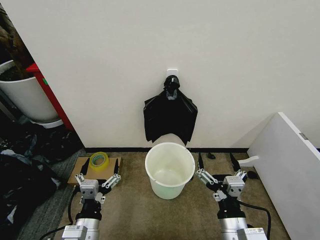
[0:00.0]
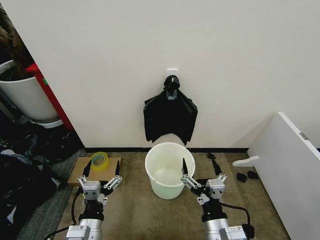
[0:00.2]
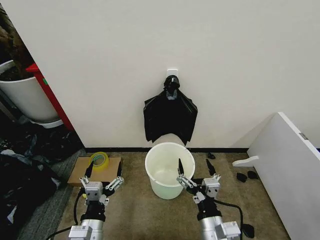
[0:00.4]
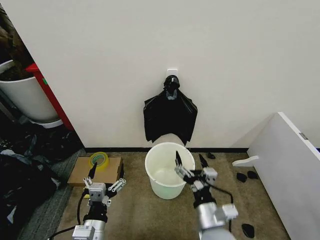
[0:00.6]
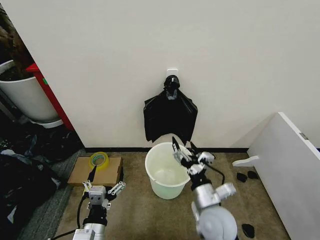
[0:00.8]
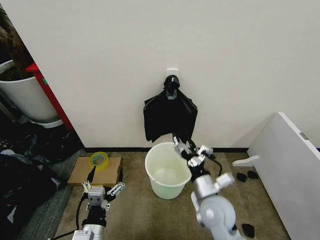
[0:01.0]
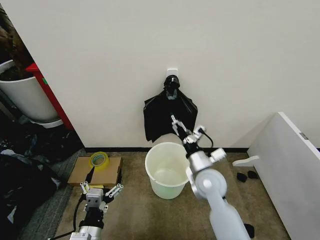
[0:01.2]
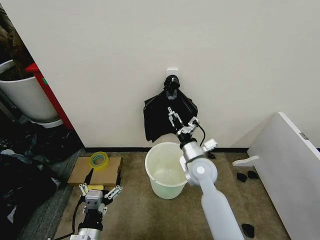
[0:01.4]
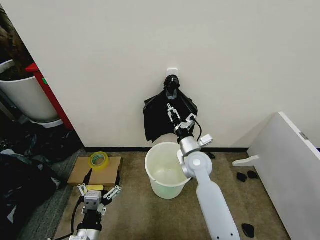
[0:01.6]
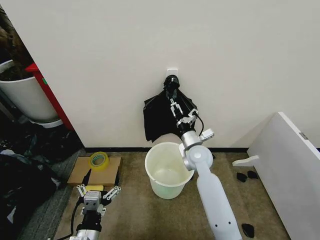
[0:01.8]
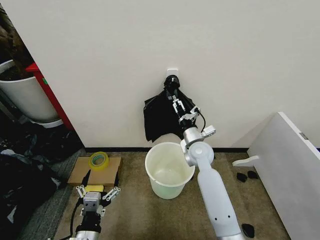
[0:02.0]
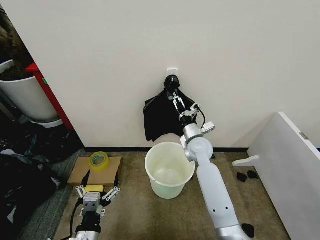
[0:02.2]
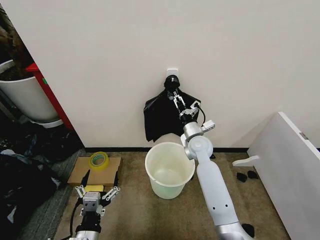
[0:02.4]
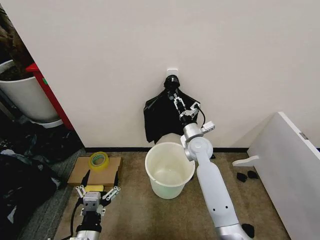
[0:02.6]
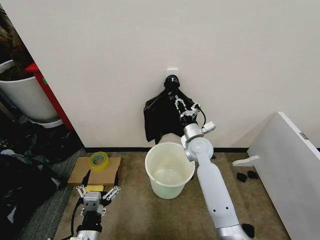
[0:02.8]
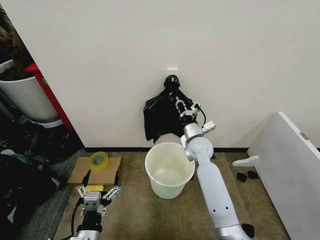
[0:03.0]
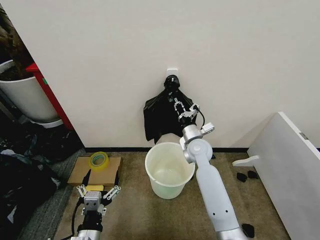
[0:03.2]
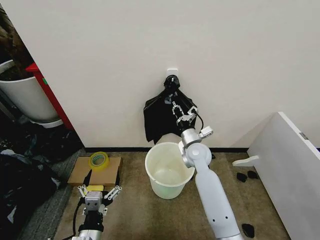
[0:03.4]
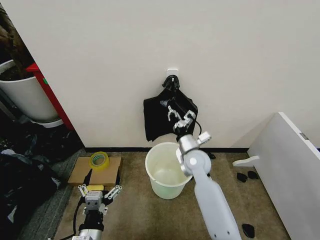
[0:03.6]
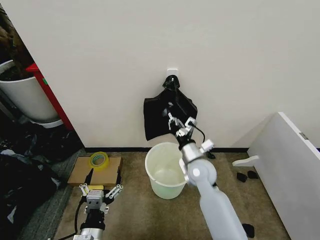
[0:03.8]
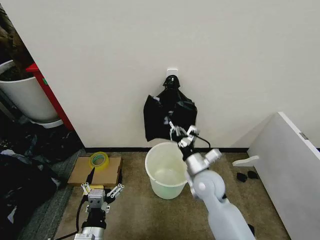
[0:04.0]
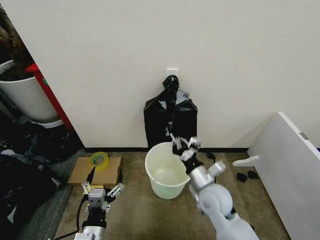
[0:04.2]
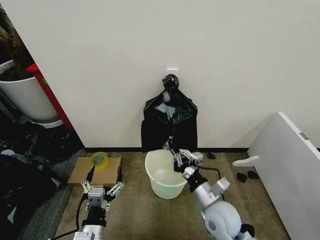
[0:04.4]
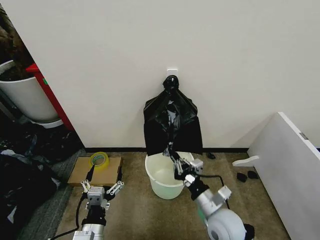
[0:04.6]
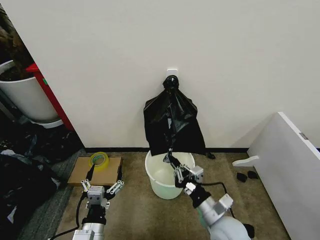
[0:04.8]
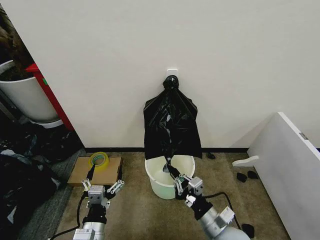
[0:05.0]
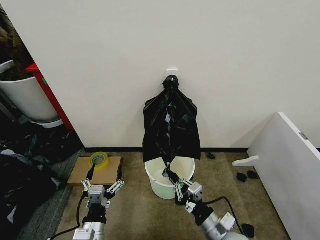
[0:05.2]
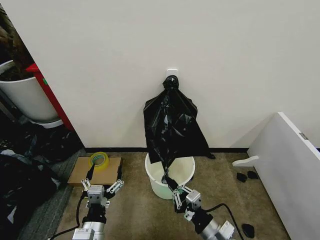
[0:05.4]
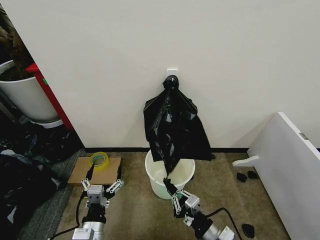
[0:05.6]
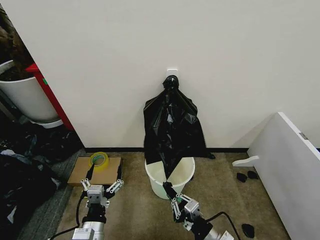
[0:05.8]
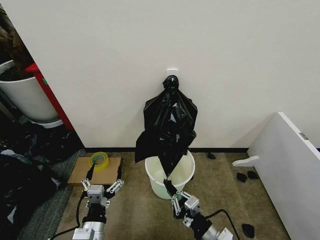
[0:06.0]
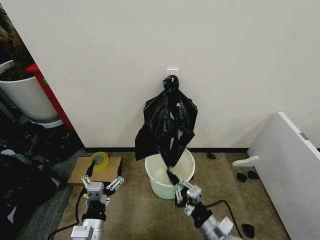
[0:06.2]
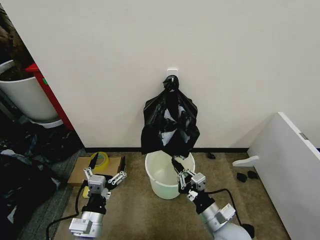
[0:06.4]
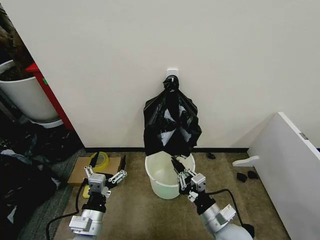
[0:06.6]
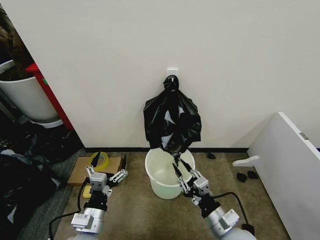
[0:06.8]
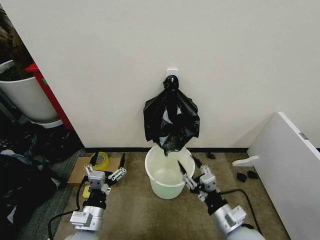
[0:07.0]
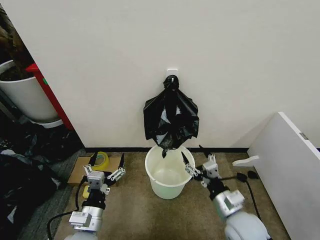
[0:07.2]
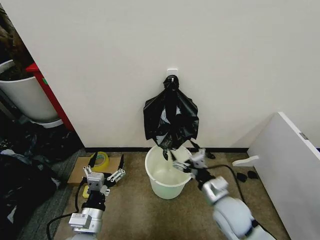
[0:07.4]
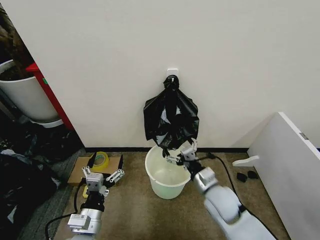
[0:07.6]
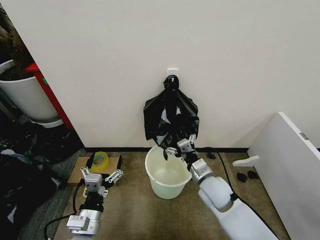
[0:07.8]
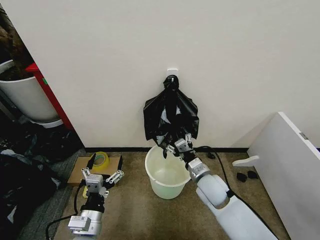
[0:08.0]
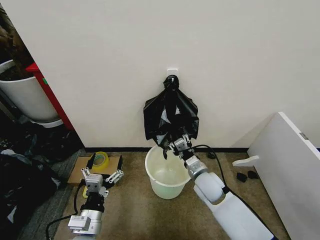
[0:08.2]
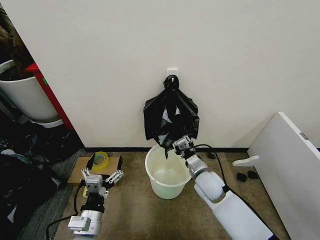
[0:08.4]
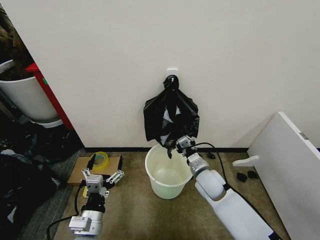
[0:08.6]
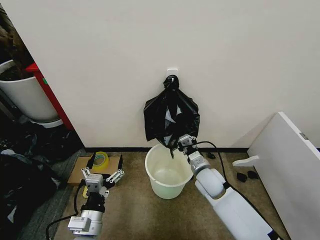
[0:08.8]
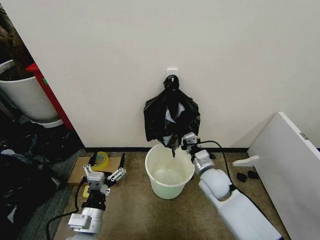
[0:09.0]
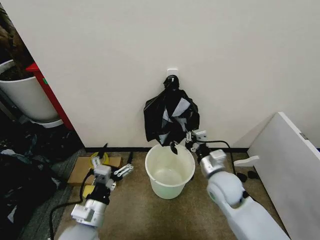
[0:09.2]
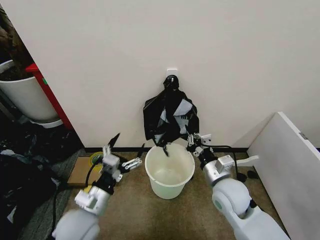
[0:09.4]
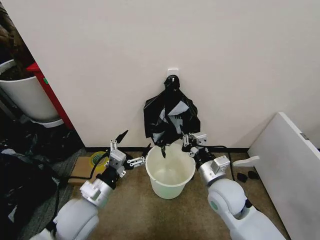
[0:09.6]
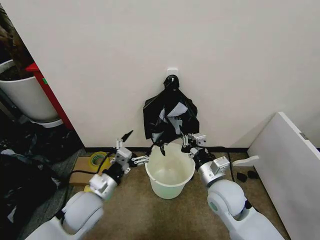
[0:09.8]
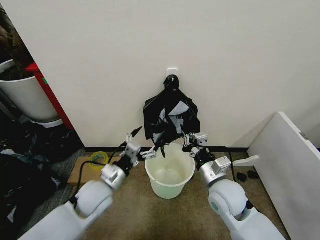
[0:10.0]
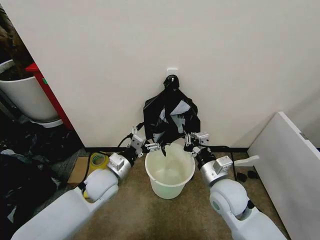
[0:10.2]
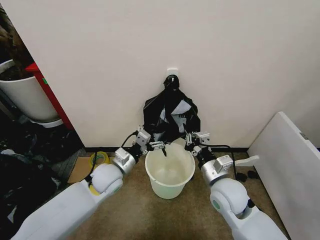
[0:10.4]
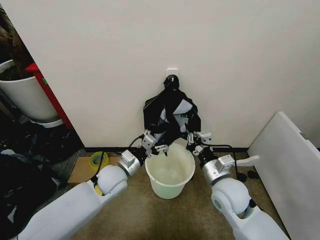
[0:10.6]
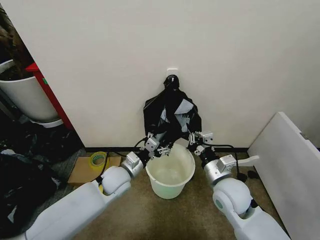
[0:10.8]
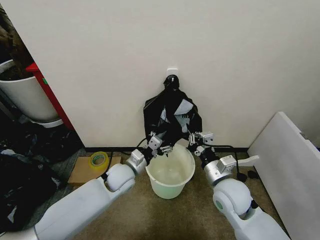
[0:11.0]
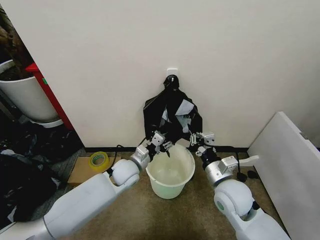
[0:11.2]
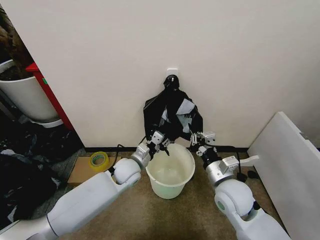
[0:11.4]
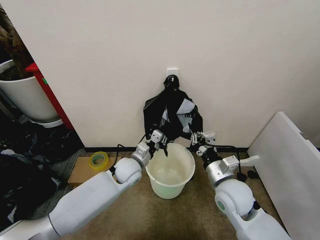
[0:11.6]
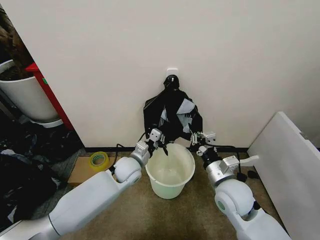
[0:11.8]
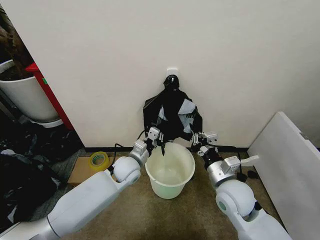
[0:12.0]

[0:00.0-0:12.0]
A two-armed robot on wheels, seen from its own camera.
Task of the whole recording: Place the garbage bag over the trash bin.
0:01.6 to 0:03.0: The right gripper shifts roughly 5 cm forward, and closes.
0:03.0 to 0:04.4: The right gripper moves backward, about 20 cm.
0:04.4 to 0:06.0: The right gripper heads backward and downward, covering some 10 cm.
0:06.0 to 0:07.6: The right gripper heads forward, covering about 15 cm, and opens its fingers.
0:07.6 to 0:09.0: The right gripper moves forward, some 5 cm, and closes up.
0:09.0 to 0:10.4: The right gripper moves backward and upward, approximately 10 cm; the left gripper goes about 20 cm forward.
0:10.4 to 0:12.0: The left gripper is displaced to the right and forward by approximately 10 cm, and closes up.

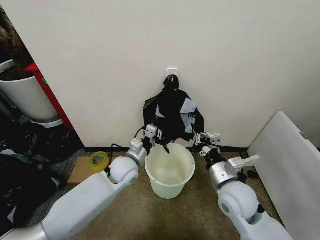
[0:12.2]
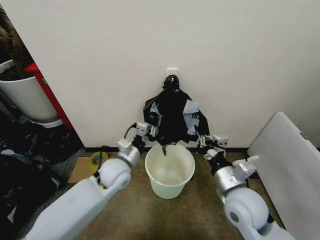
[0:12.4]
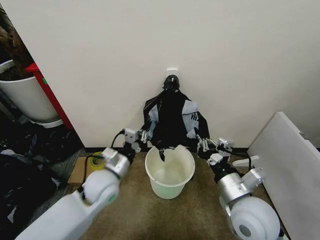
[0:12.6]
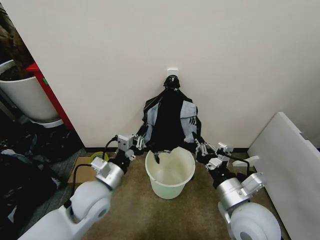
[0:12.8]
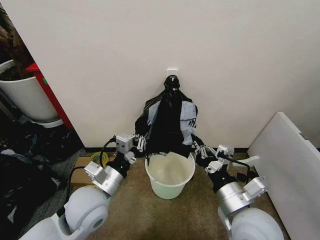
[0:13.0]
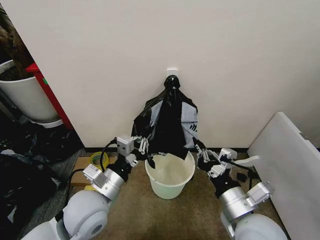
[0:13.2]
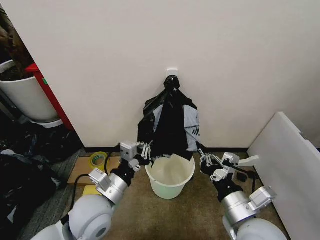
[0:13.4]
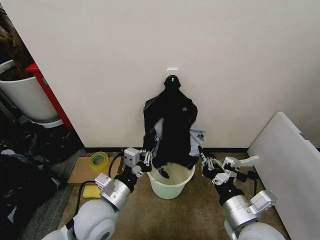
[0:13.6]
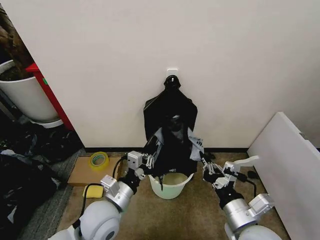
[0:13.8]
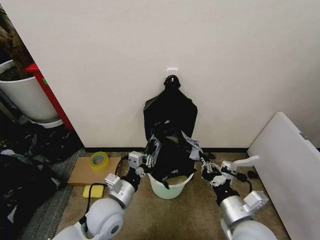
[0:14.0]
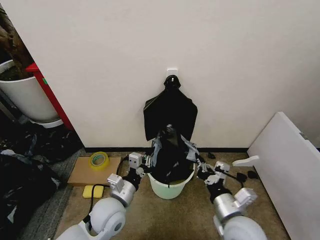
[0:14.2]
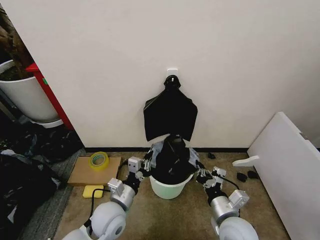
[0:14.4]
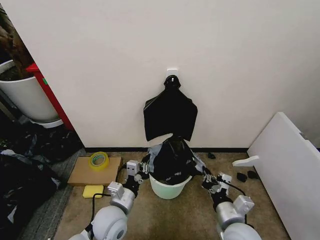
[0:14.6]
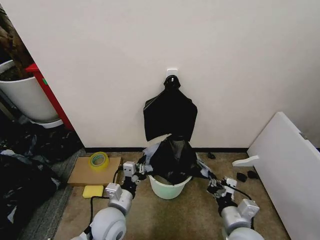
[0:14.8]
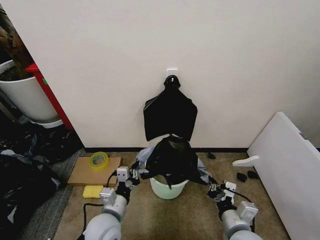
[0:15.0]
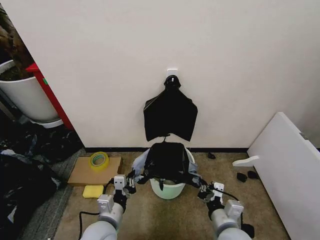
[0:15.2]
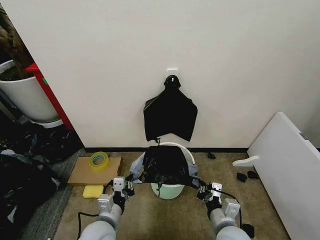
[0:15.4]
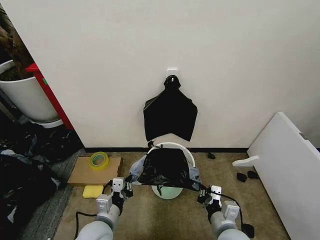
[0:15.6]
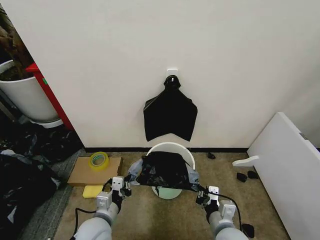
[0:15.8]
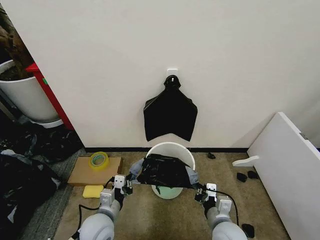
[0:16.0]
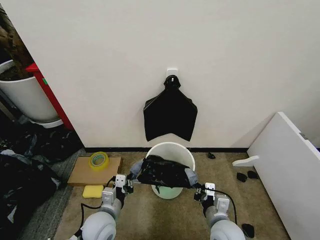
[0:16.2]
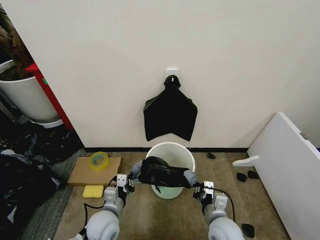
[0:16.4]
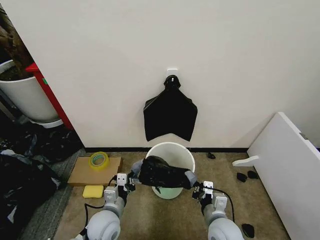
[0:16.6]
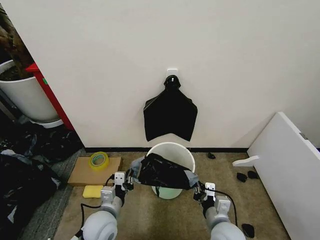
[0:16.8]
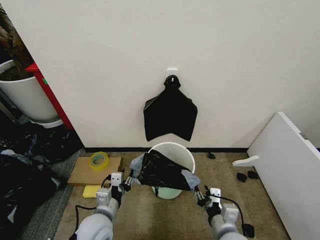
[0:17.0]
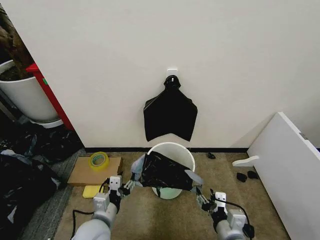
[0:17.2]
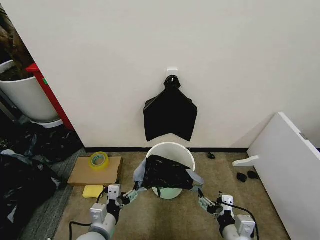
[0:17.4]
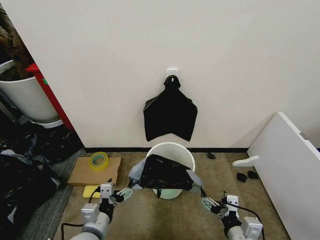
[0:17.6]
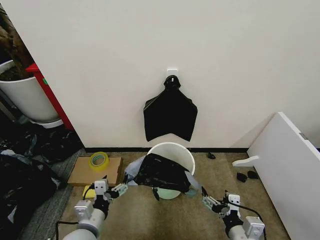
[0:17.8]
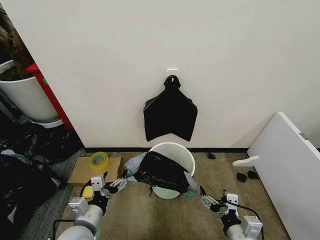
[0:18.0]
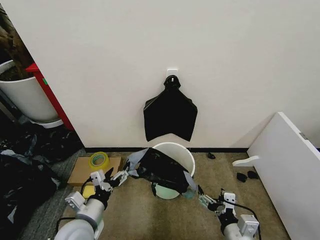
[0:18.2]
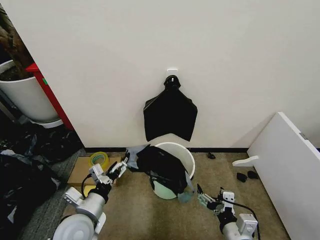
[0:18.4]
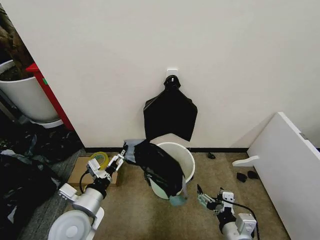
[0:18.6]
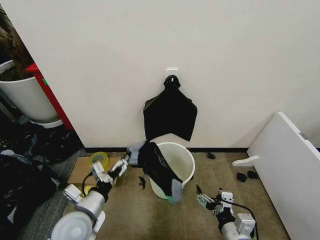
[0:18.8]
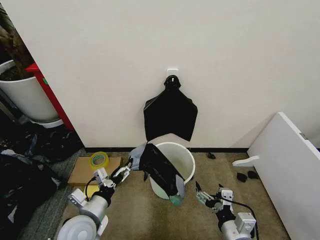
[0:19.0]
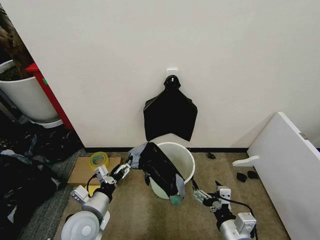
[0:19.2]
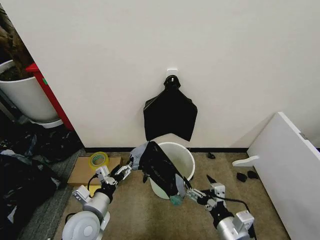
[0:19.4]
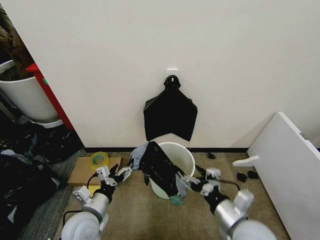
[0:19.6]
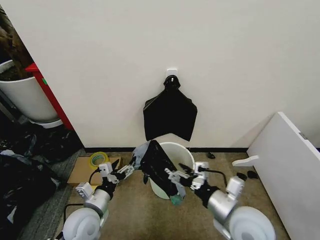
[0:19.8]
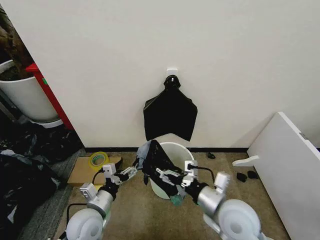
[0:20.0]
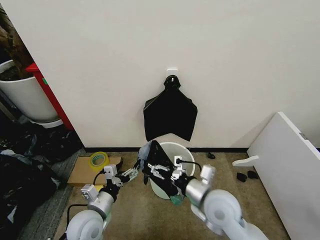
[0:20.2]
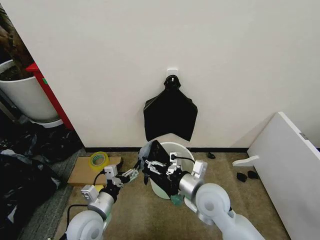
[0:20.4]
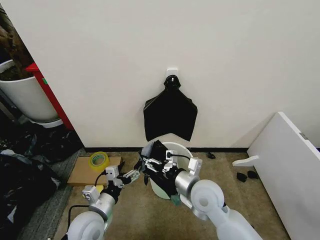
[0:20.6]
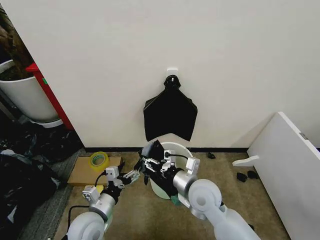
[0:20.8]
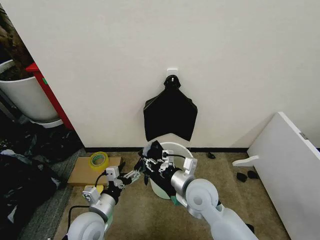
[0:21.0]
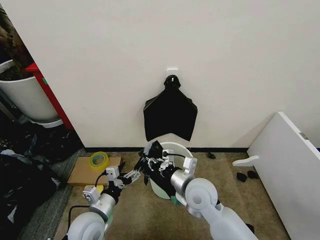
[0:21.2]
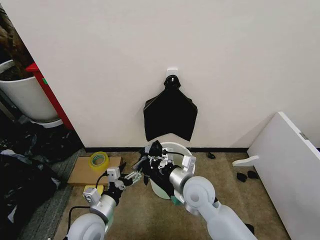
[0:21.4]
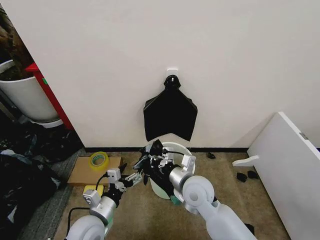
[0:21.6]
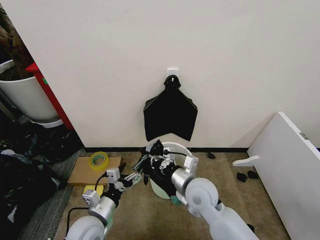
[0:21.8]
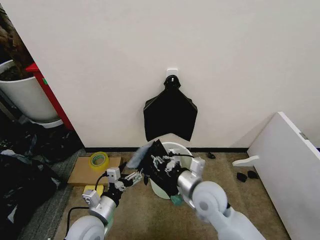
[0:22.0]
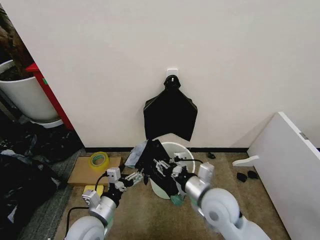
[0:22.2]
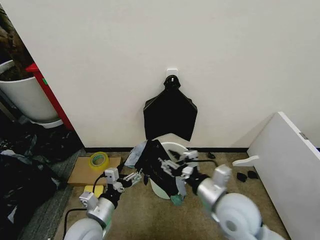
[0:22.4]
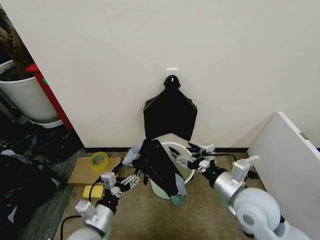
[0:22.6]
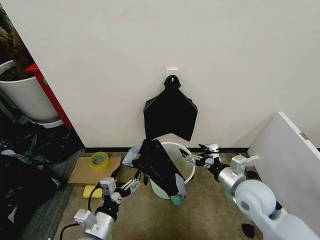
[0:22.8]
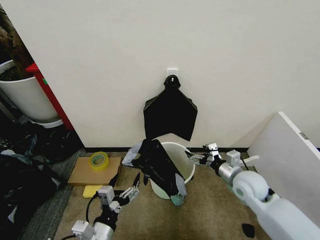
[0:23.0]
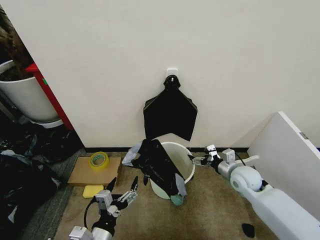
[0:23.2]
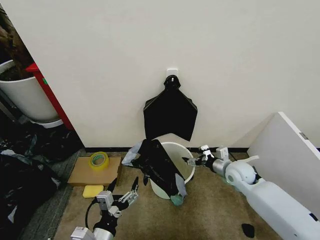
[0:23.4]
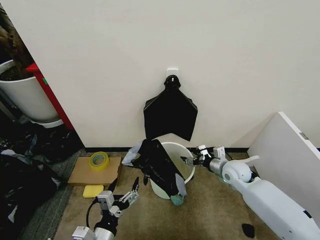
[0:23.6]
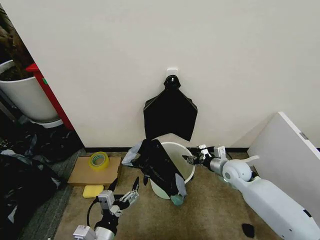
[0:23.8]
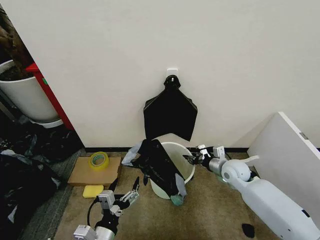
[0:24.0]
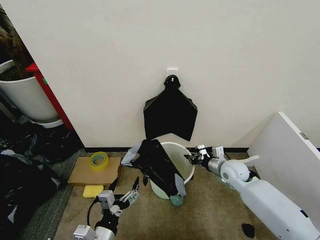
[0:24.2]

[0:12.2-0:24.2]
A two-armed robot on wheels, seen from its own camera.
Task of the whole recording: Place the garbage bag over the trash bin.
0:12.2 to 0:13.8: Both grippers travel together backward, roughly 15 cm.
0:13.8 to 0:15.2: Both grippers travel together downward, about 10 cm.
0:15.2 to 0:16.6: The left gripper ends up about 5 cm from where it was.
0:16.6 to 0:18.2: The left gripper travels upward and to the left by about 10 cm, and opens up, while the right gripper travels backward and upward by approximately 10 cm, and opens.
0:18.2 to 0:19.8: The right gripper shifts roughly 10 cm upward and forward.
0:19.8 to 0:21.2: The right gripper travels to the left and forward by roughly 15 cm, and closes.
0:21.2 to 0:22.6: The right gripper shifts about 15 cm to the right, upward and backward, and opens.
0:22.6 to 0:24.2: The right gripper goes about 20 cm forward and downward, and closes its fingers. Meanwhile the left gripper is displaced backward by roughly 5 cm.
